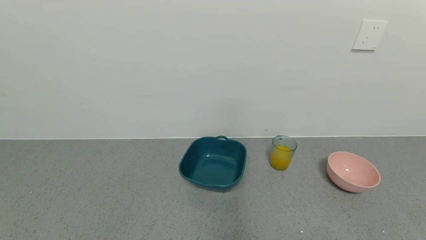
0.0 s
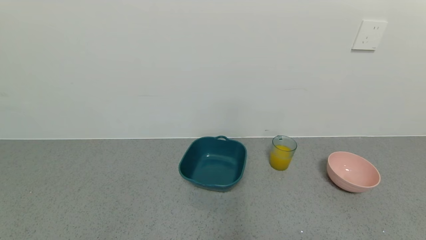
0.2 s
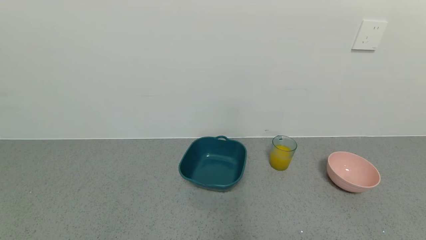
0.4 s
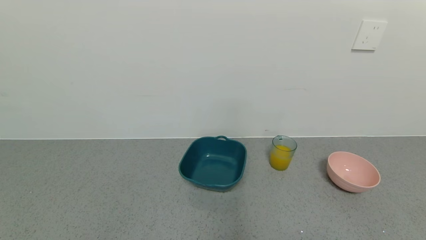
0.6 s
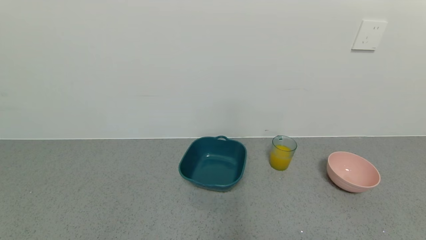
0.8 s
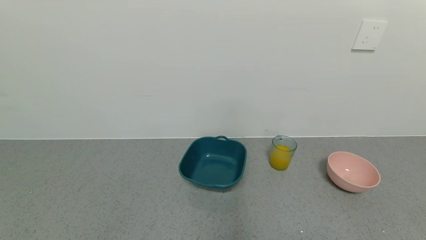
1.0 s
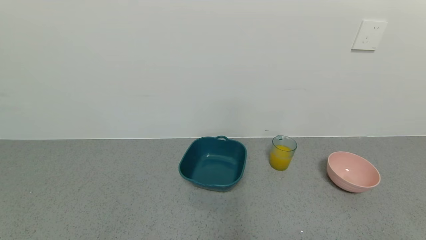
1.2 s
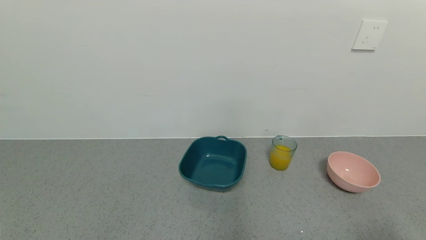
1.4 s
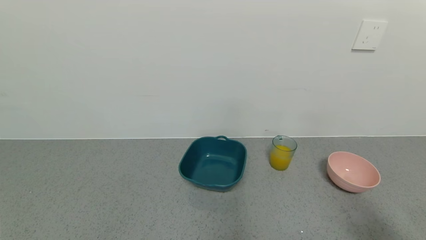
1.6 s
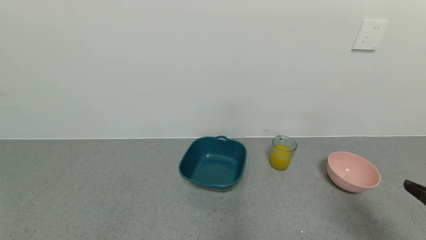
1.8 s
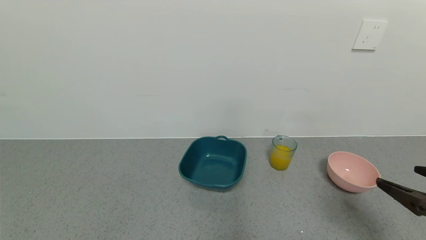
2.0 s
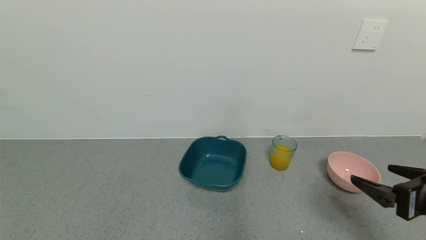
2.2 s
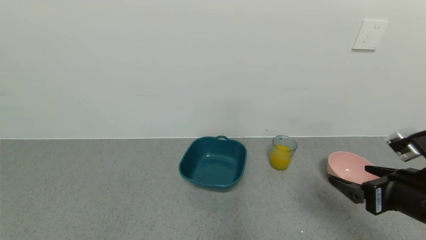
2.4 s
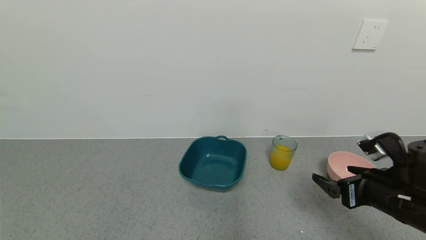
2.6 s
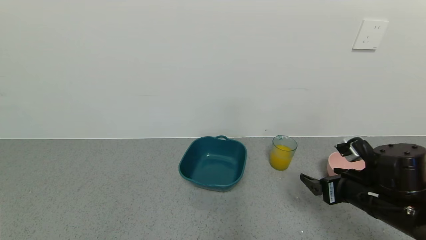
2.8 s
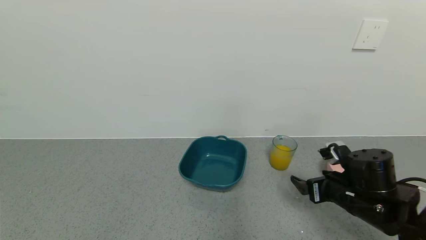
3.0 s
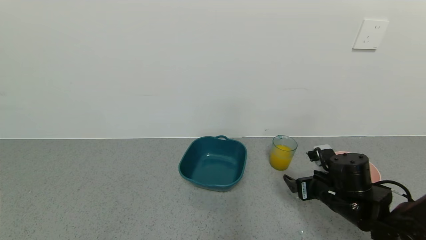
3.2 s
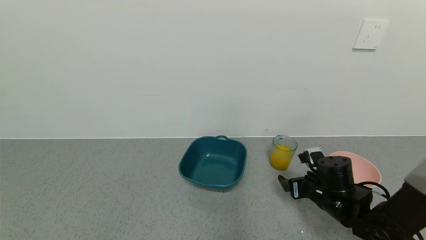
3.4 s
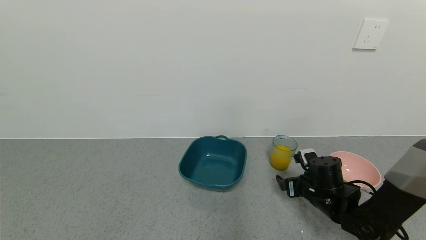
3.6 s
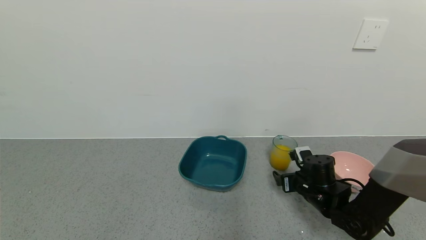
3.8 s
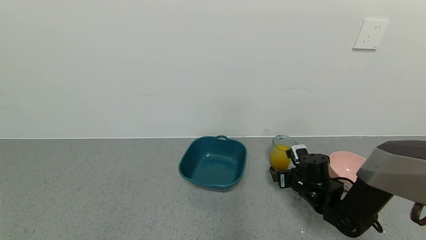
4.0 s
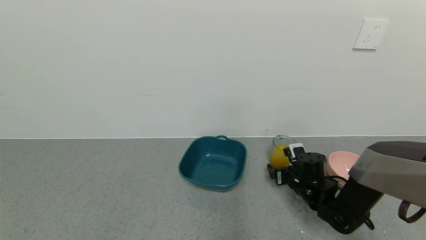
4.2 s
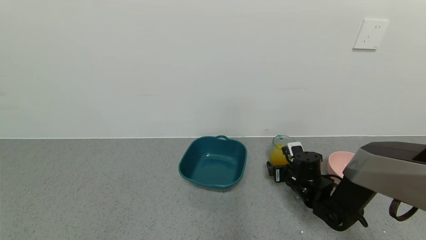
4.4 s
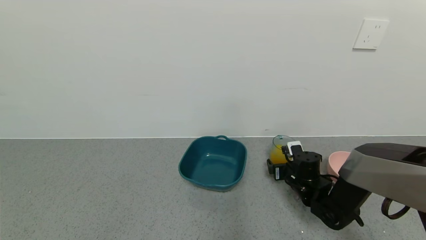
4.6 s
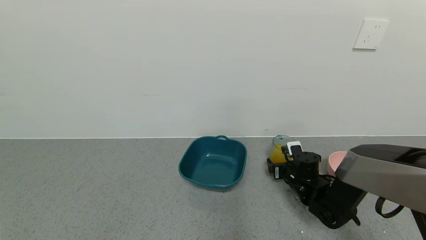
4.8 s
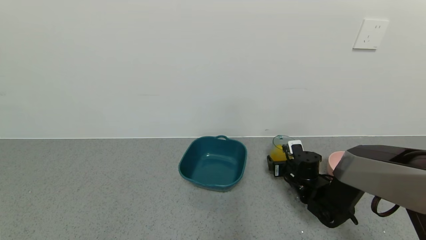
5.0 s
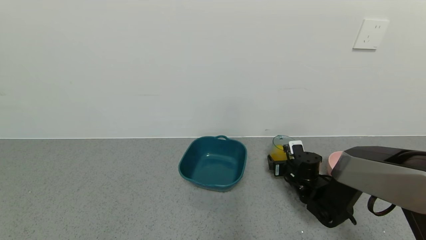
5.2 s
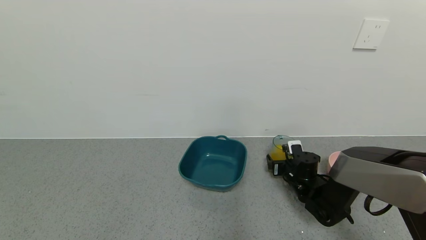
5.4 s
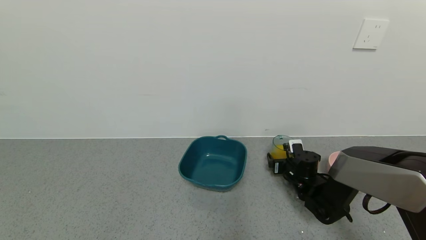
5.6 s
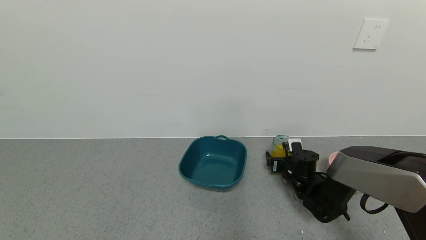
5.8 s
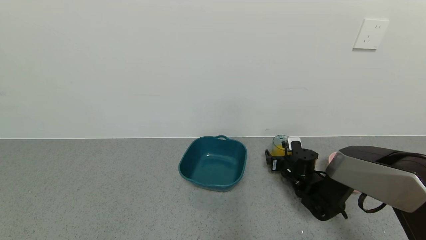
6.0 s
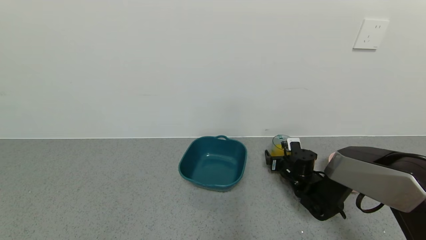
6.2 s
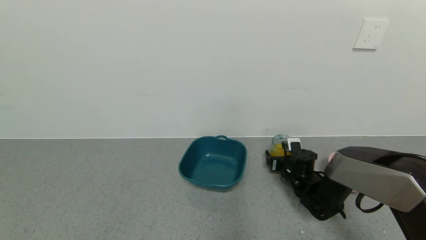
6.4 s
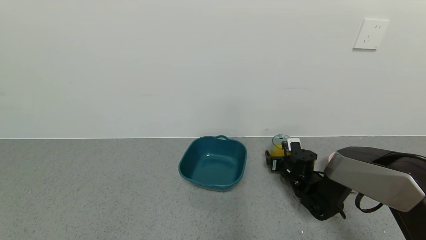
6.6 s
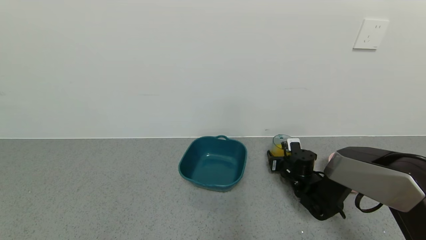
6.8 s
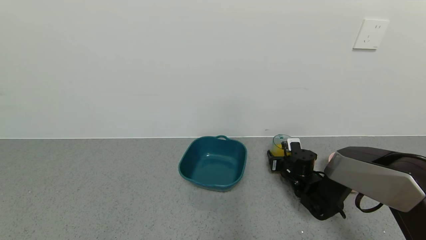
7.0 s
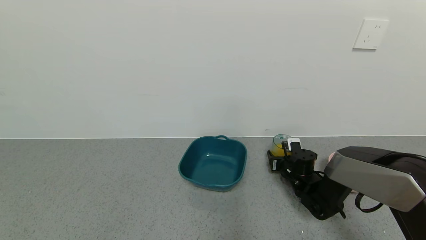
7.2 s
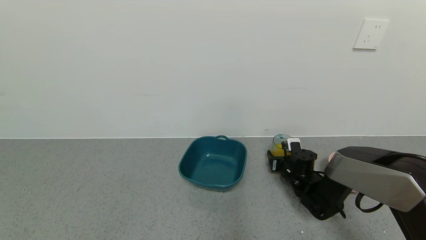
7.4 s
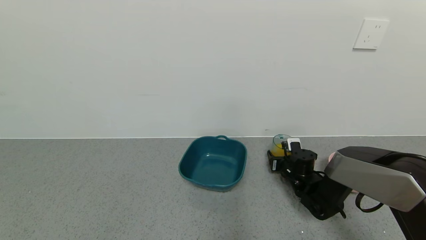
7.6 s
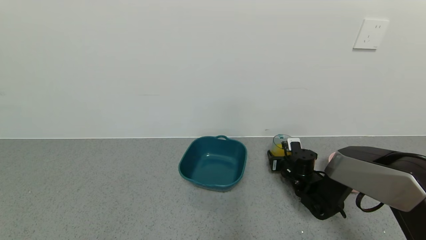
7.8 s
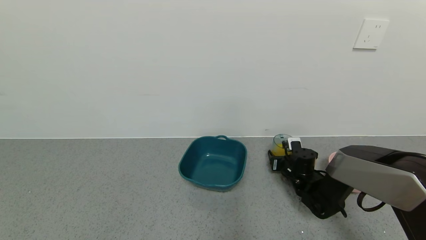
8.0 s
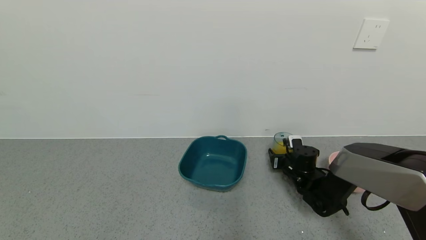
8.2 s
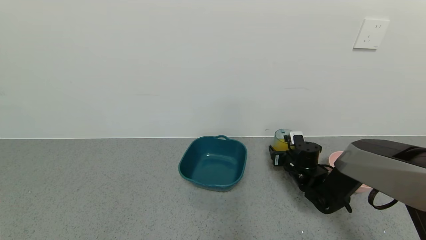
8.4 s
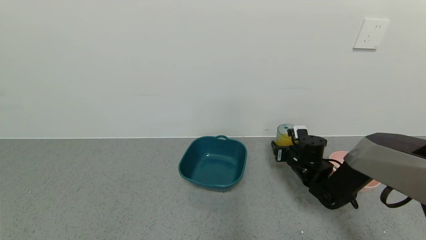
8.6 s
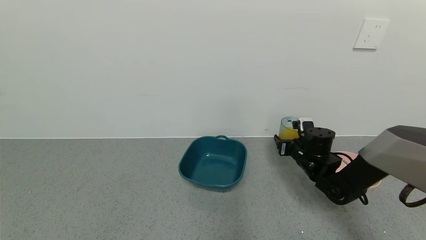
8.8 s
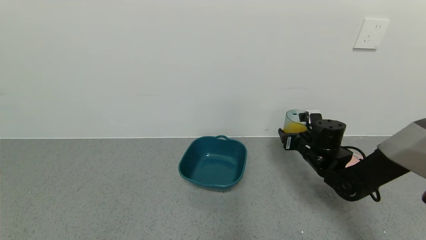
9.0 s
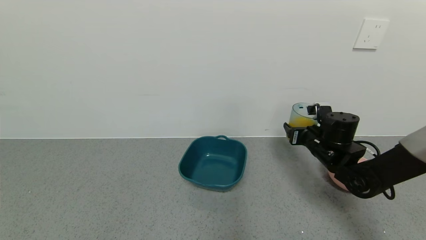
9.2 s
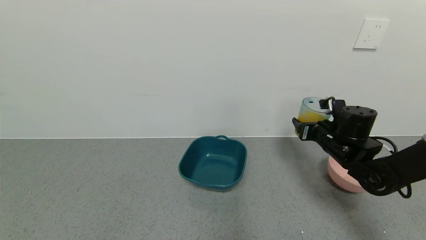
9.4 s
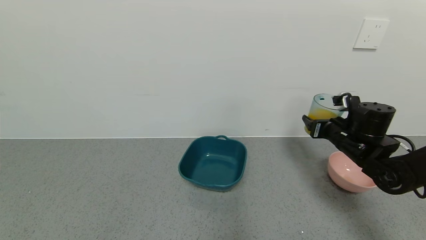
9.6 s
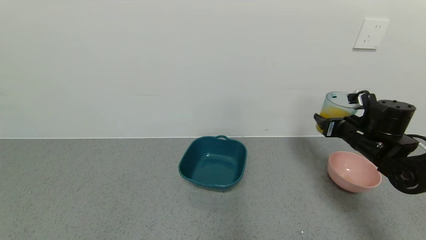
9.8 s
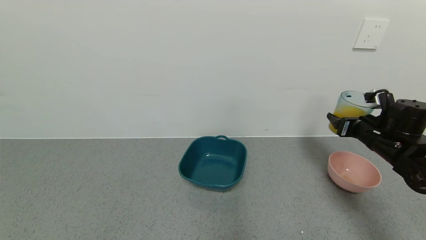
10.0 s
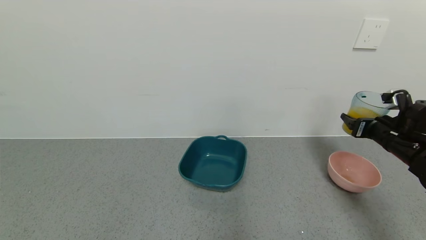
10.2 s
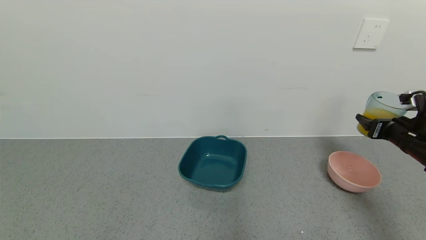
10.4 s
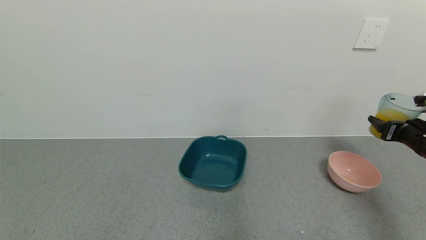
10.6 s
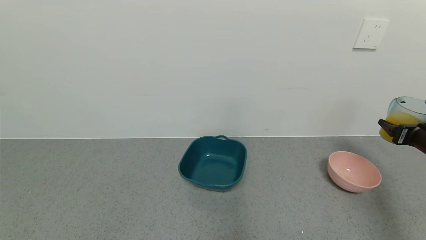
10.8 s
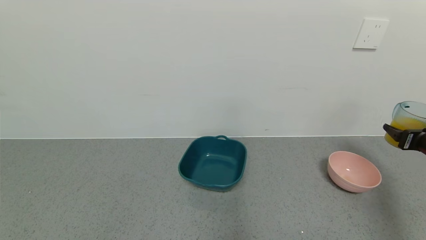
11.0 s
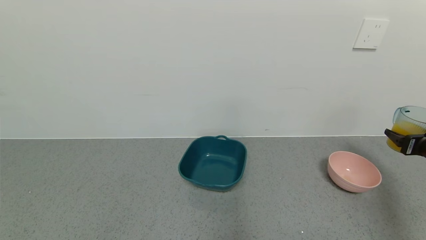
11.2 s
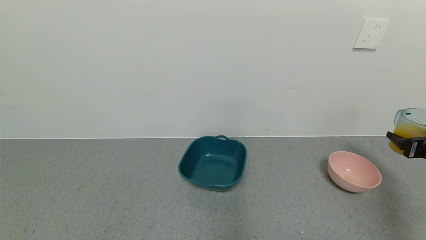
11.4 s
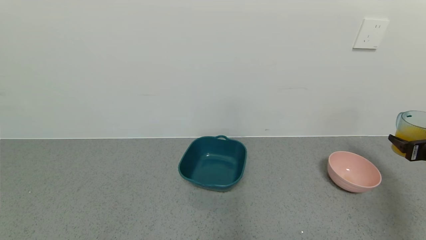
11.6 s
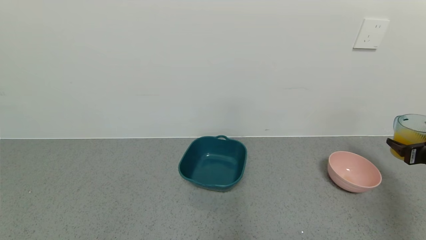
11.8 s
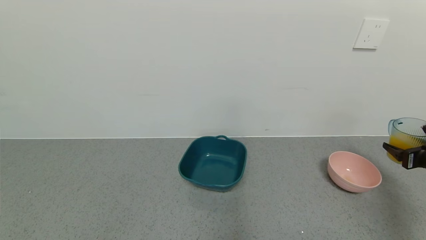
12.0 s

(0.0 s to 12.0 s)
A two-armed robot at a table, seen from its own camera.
Task of the whole recording: use a gripper to pick up the cup and pour the liquid into a bowl or tray.
Step, 0.0 s - 11.0 s: Pick up blue cup filled with orange juice with right gripper.
0.0 s - 1.6 s: The right gripper shifts approximately 15 cm upward and forward.
1.6 s - 3.0 s: The right gripper travels forward, downward and to the left by roughly 25 cm.
3.0 s - 4.4 s: The right gripper shifts roughly 15 cm forward and downward.
4.4 s - 6.0 s: There are only small adjustments of the grippers.
6.0 s - 7.6 s: The right gripper closes its fingers.
7.6 s - 9.0 s: The right gripper moves upward, approximately 10 cm.
9.0 s - 10.4 s: The right gripper shifts roughly 20 cm to the right.
10.4 s - 12.0 s: The right gripper moves to the right, some 10 cm.

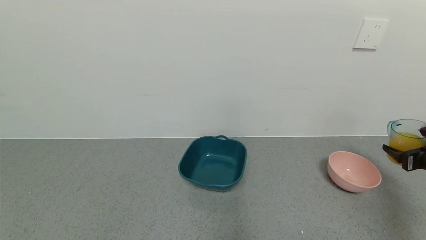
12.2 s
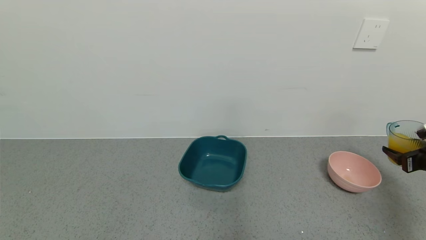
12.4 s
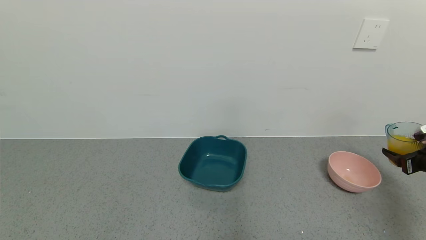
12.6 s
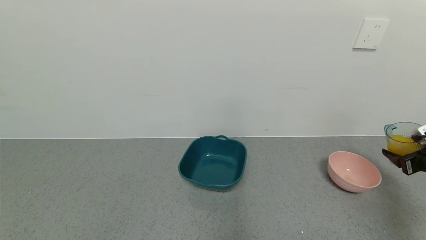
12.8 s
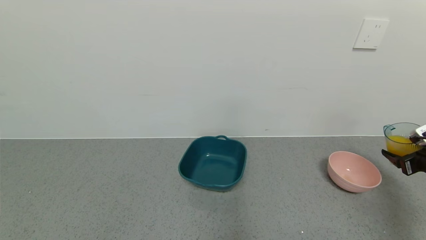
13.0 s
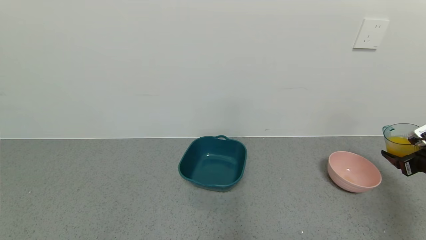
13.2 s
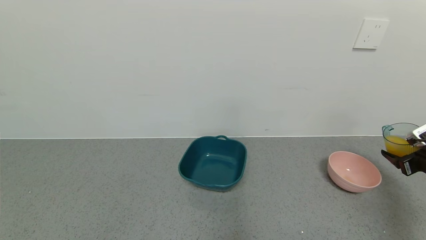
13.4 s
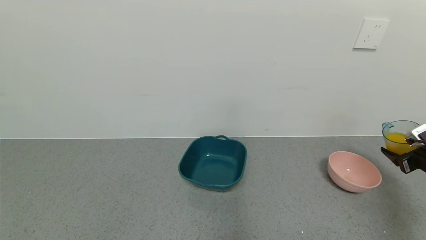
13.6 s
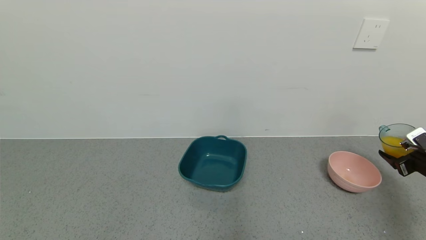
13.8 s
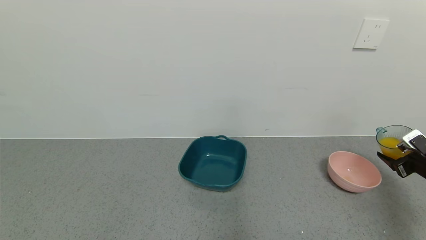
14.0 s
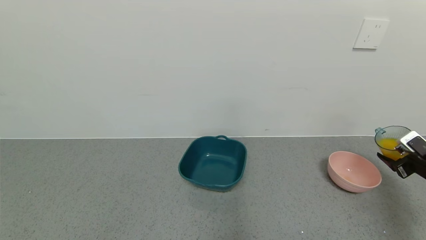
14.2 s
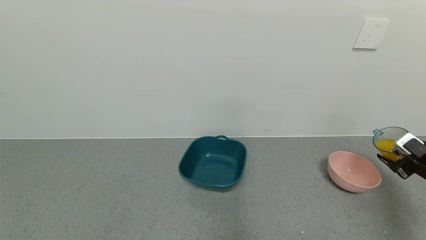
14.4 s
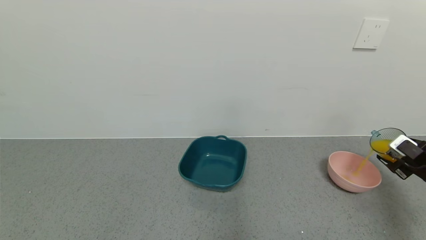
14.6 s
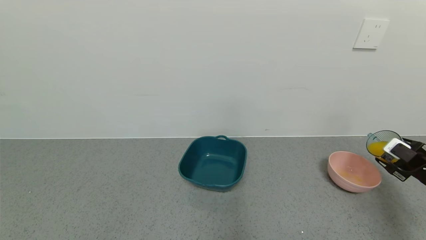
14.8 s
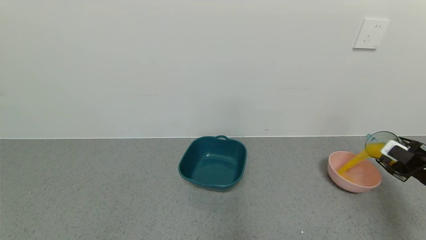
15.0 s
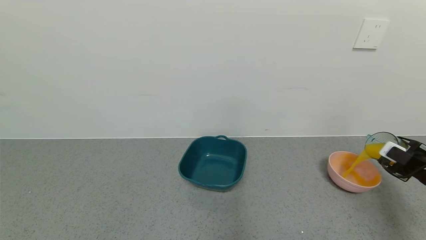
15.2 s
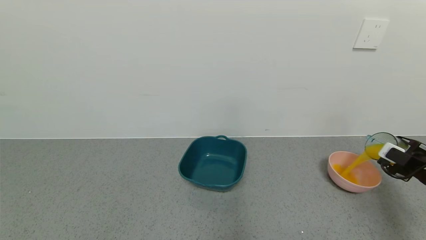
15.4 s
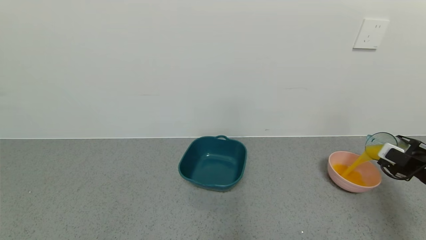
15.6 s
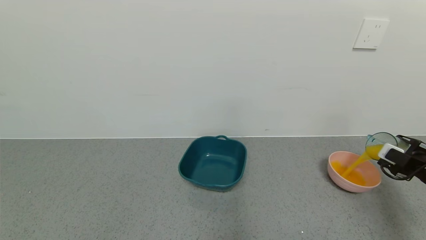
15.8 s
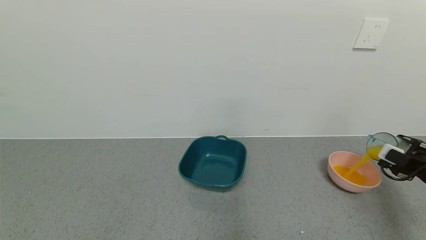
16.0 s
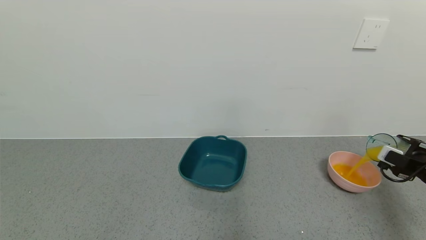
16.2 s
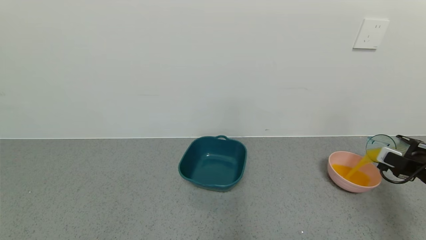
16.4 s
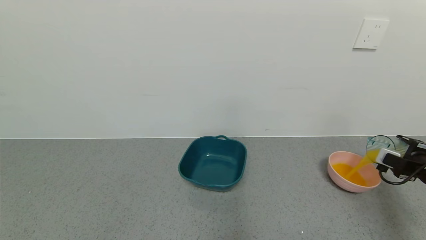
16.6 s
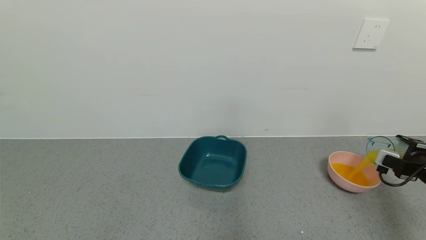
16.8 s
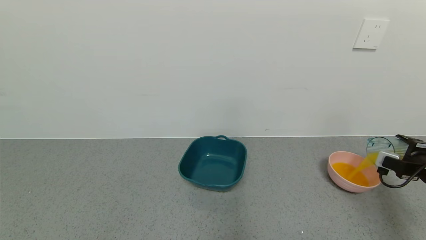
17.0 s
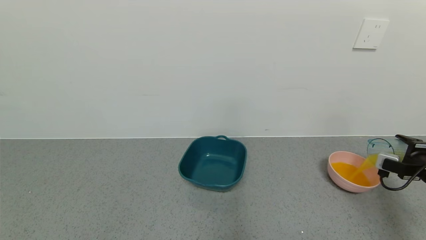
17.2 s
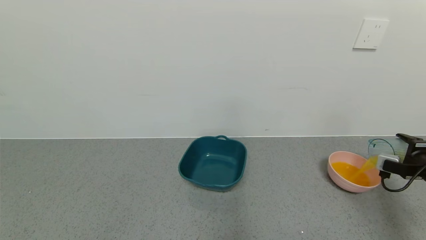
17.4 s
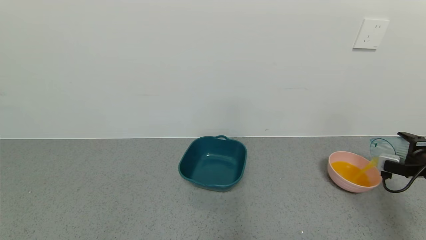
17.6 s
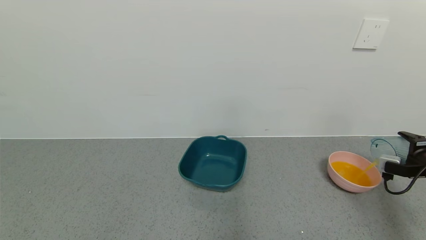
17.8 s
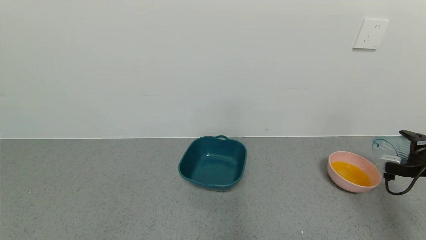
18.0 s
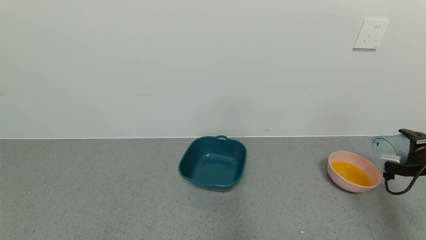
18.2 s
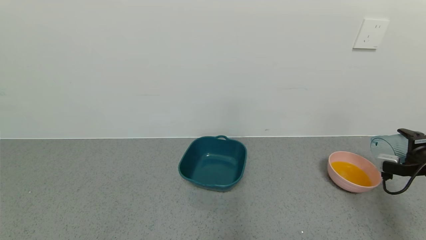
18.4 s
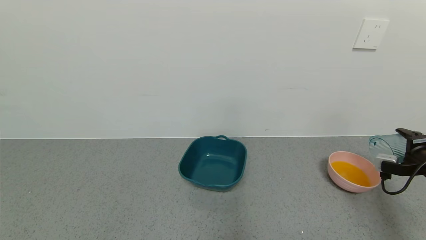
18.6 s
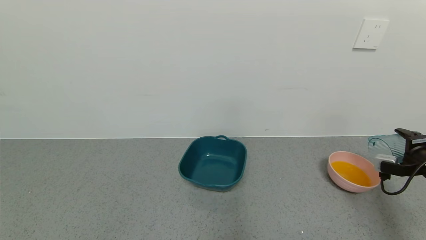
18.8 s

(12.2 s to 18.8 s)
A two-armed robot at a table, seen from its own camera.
Task of the whole recording: use a gripper to pick up the cup and pour the liquid into a bowl or tray.
Step, 12.2 s - 18.6 s: Pour the orange juice into the pink bowl with right gripper.
12.2 s - 13.8 s: There are only small adjustments of the grippers.
17.2 s - 18.8 s: The grippers stay close to where they were, moving slightly.
